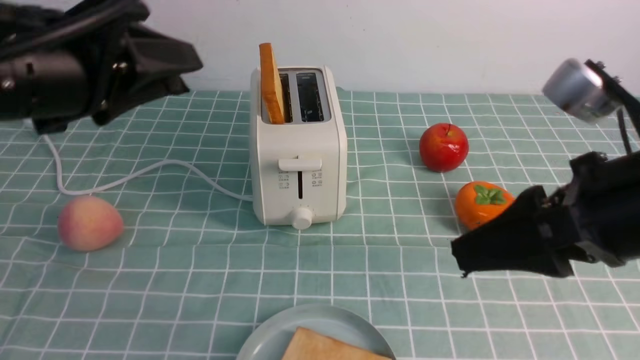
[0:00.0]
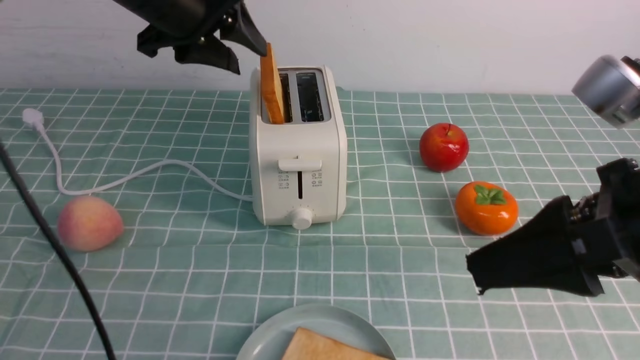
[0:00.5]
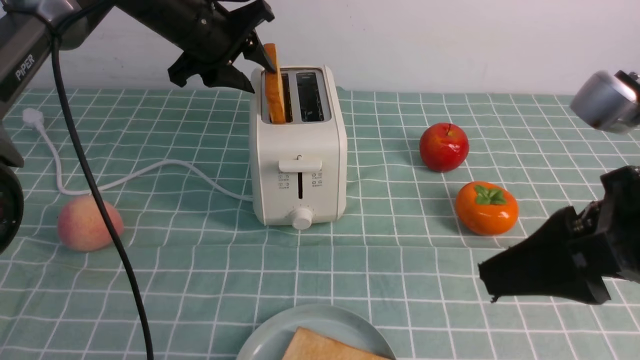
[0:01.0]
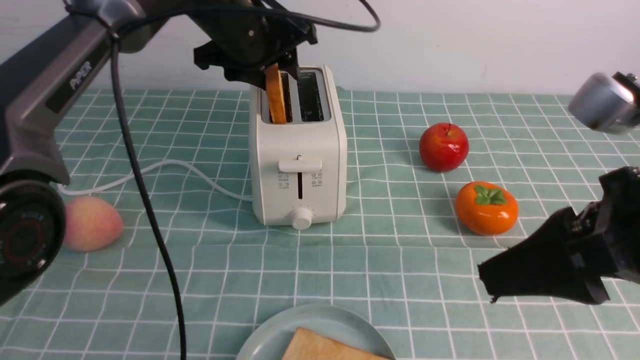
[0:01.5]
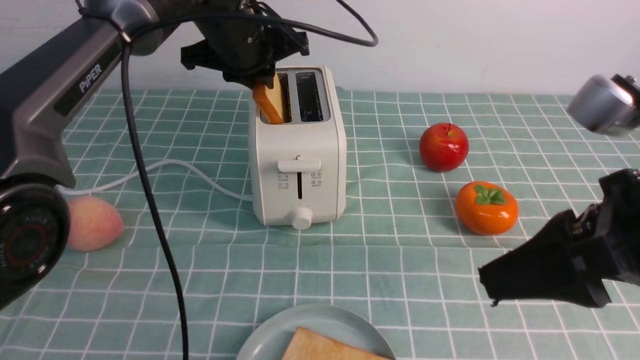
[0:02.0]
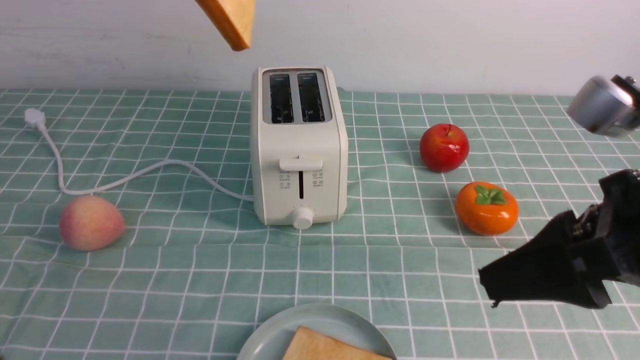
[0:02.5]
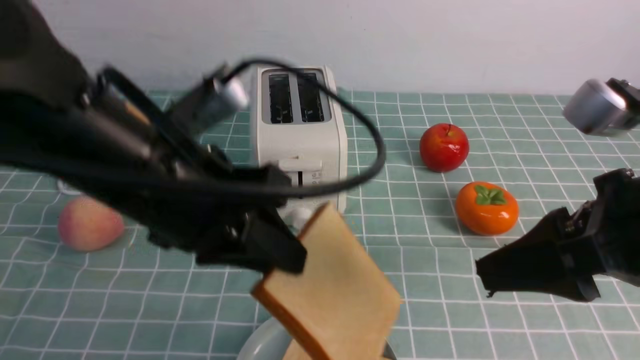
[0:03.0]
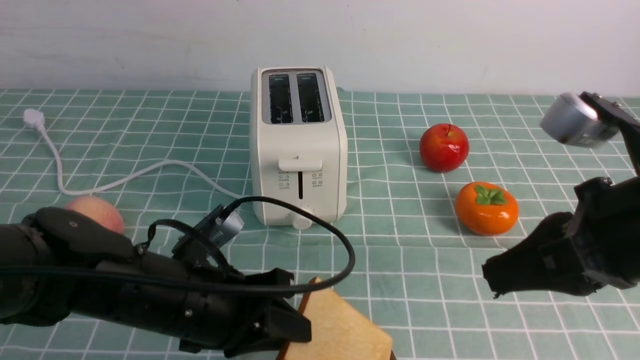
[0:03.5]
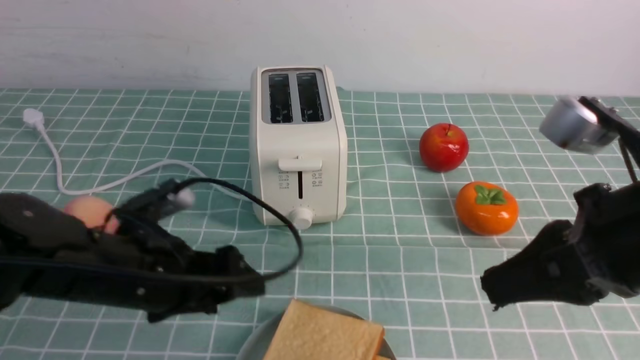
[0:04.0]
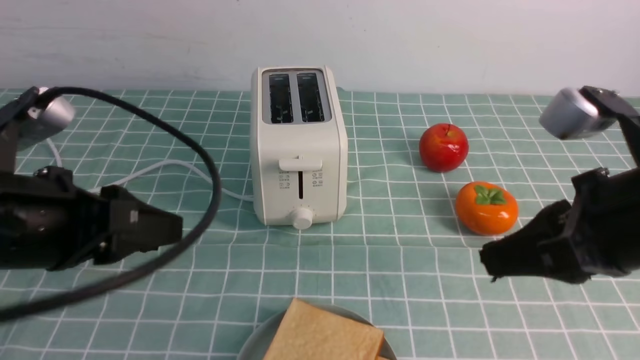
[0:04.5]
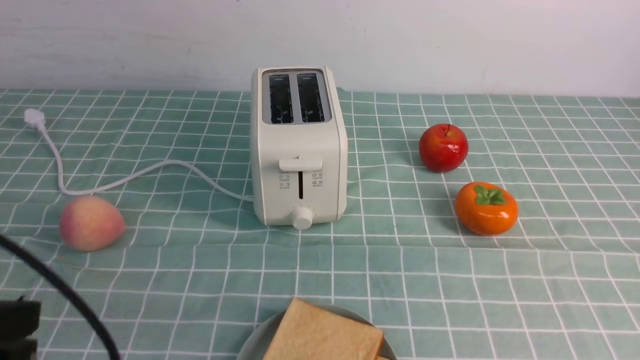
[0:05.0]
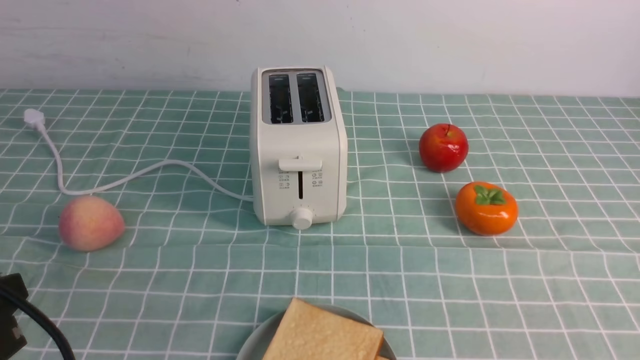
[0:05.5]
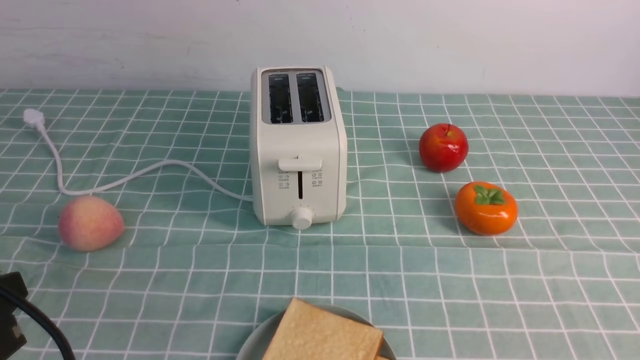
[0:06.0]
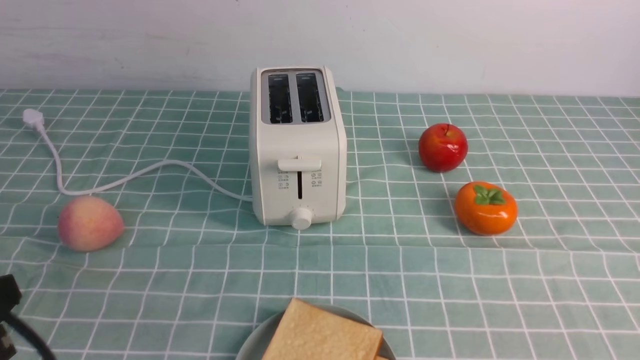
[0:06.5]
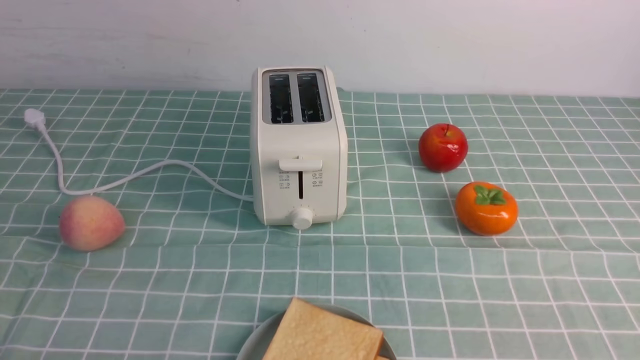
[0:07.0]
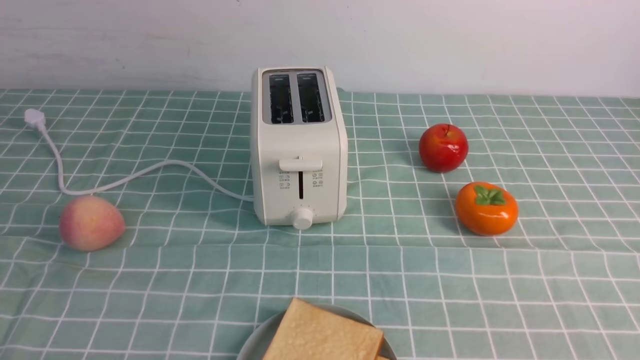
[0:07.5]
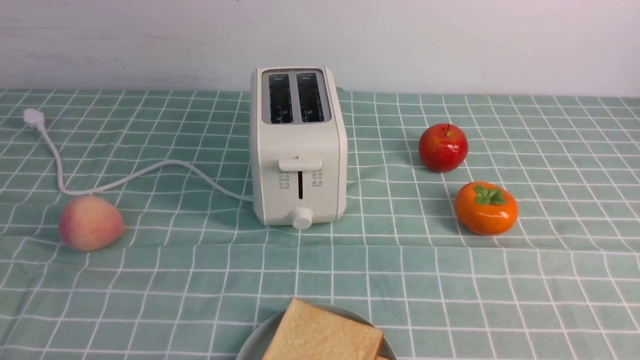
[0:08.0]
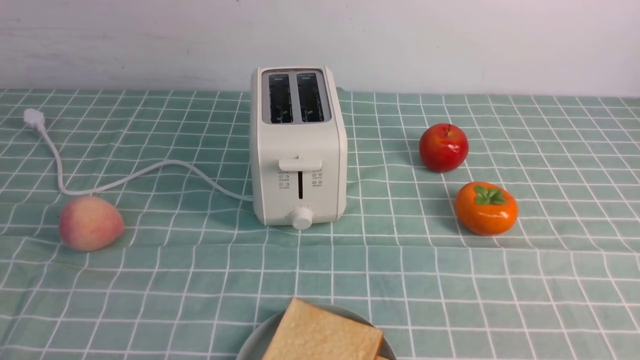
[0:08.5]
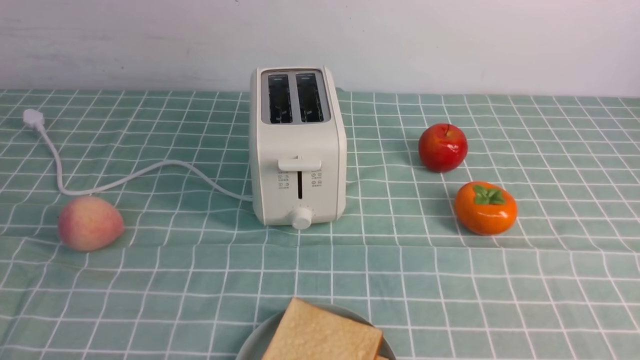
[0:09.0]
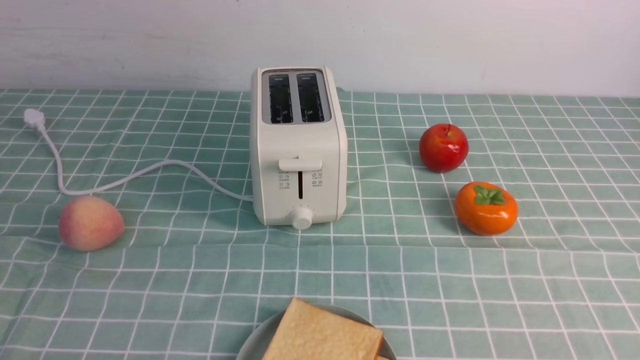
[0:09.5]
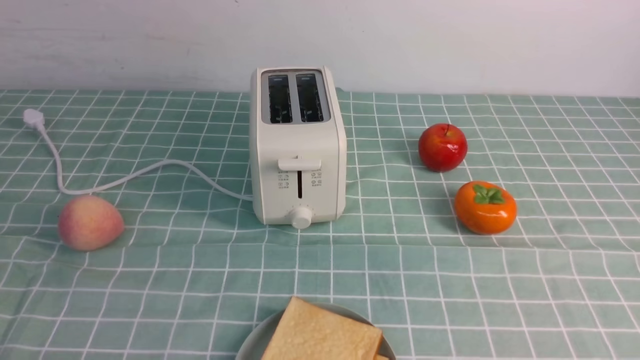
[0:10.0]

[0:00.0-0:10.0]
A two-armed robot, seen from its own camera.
Task of the whole recording: take toasted bread from bread machine on blue coffee table place on plate.
Step, 0:00.0 to 0:02.5: use the left arm to take out a slice of bread.
Step, 0:03.0 to 0:04.0: use the left arm to put a slice of bread into the empty plate.
0:00.0 to 0:02.0: The left gripper heads forward and to the right, covering about 20 cm.
0:02.0 to 0:04.0: The right gripper closes; the left gripper heads backward and downward, covering about 25 cm, and opens its fingers.
0:04.0 to 0:06.0: The left gripper heads backward and to the left, covering some 15 cm, and closes. The right gripper travels downward, backward and to the right by some 20 cm.
0:06.0 to 0:08.0: The left gripper is displaced downward by approximately 10 cm.
